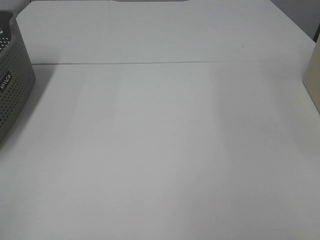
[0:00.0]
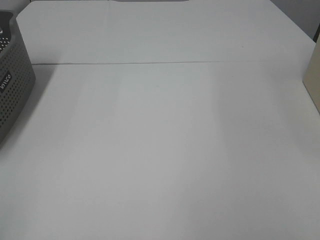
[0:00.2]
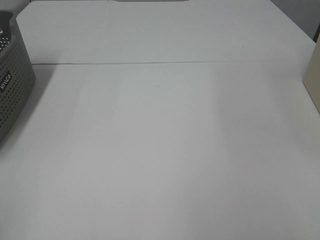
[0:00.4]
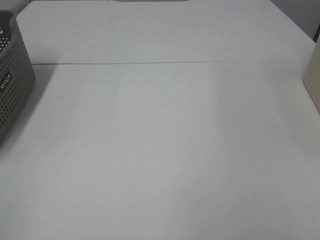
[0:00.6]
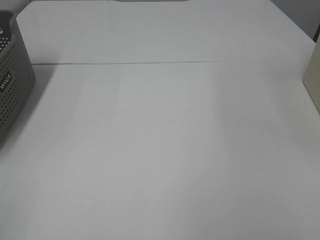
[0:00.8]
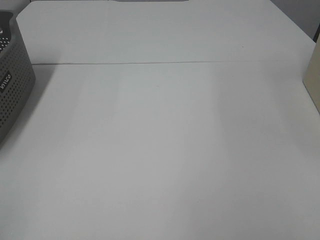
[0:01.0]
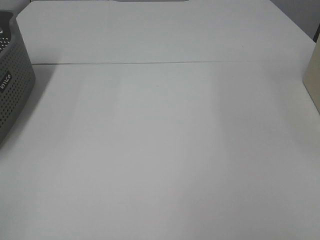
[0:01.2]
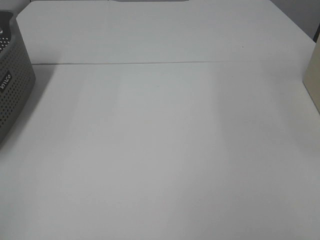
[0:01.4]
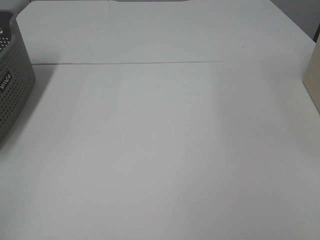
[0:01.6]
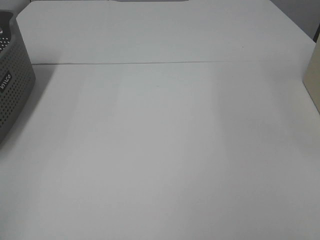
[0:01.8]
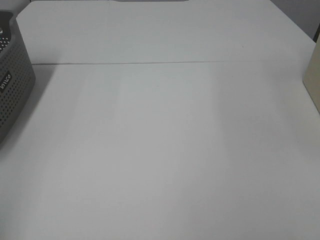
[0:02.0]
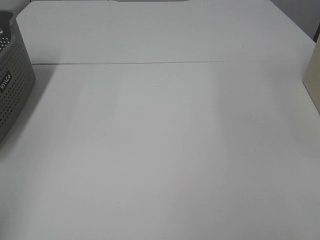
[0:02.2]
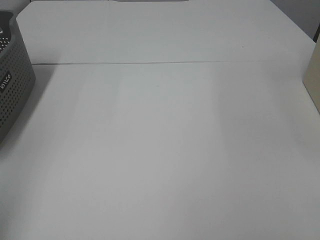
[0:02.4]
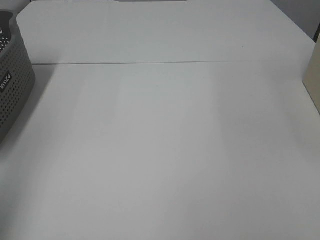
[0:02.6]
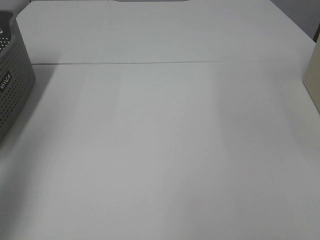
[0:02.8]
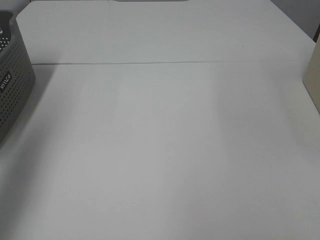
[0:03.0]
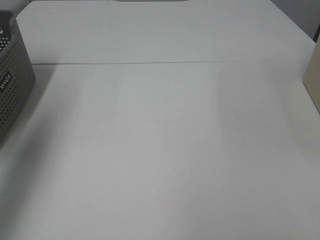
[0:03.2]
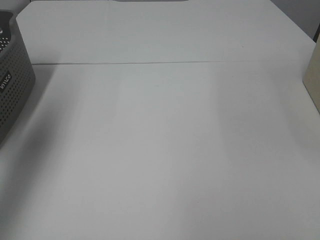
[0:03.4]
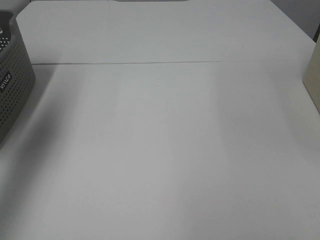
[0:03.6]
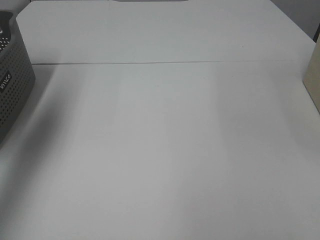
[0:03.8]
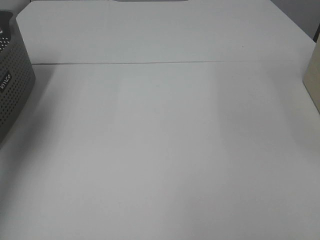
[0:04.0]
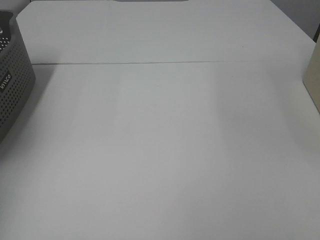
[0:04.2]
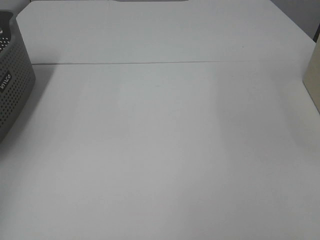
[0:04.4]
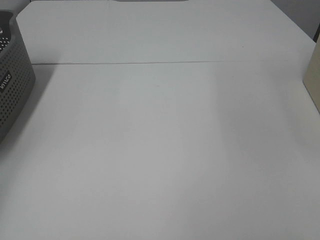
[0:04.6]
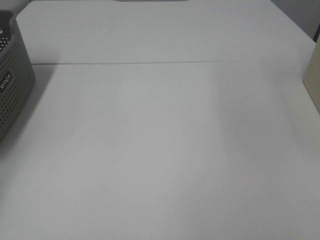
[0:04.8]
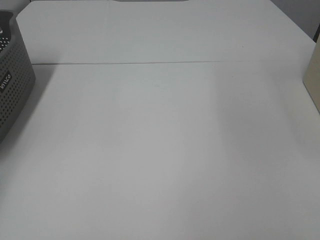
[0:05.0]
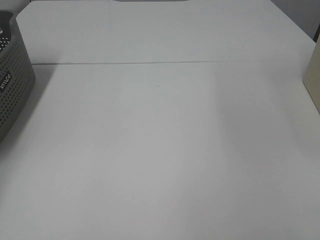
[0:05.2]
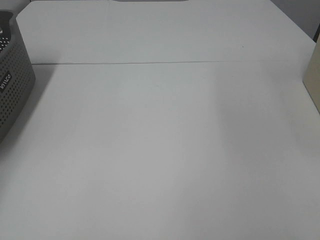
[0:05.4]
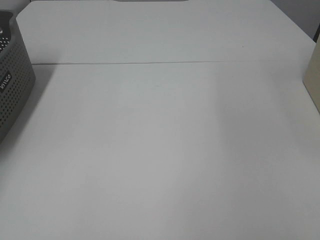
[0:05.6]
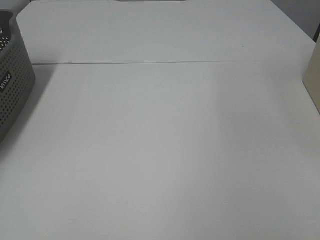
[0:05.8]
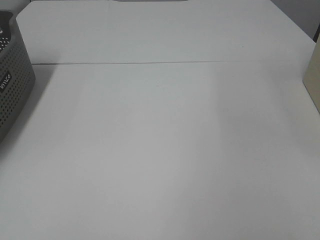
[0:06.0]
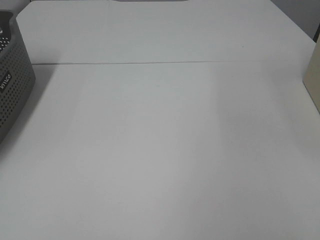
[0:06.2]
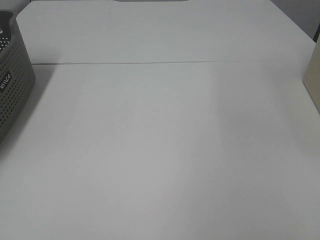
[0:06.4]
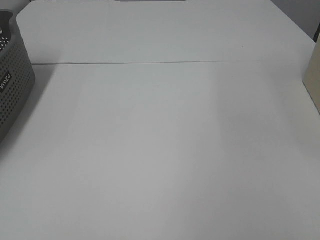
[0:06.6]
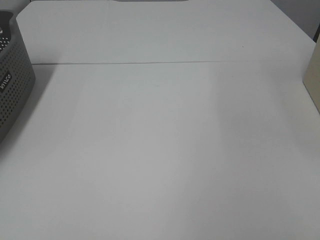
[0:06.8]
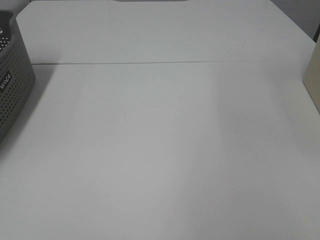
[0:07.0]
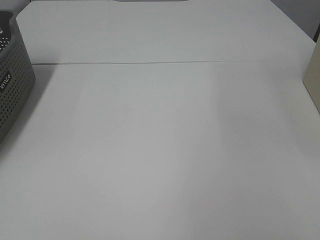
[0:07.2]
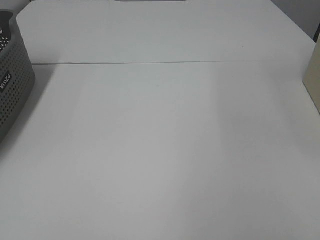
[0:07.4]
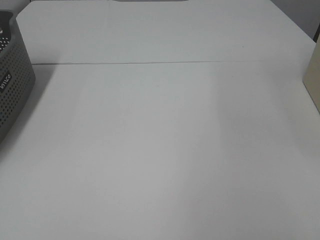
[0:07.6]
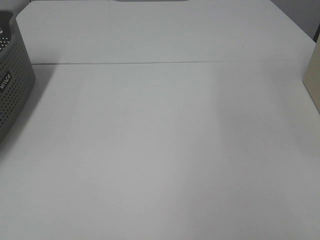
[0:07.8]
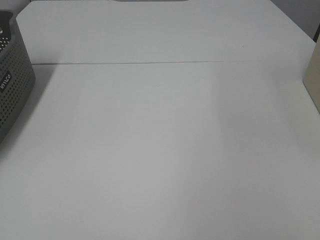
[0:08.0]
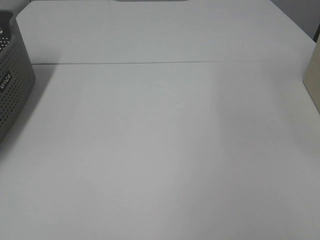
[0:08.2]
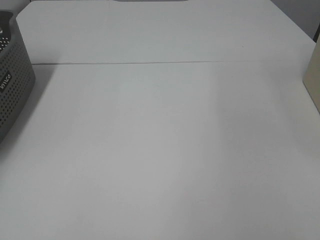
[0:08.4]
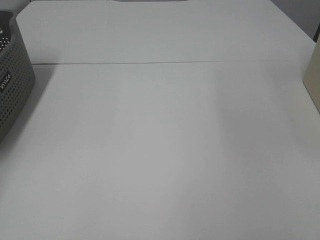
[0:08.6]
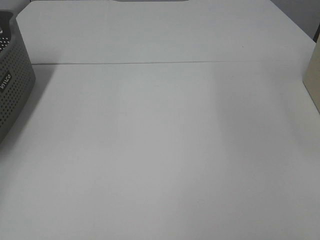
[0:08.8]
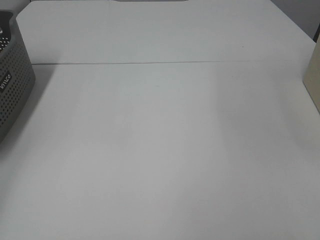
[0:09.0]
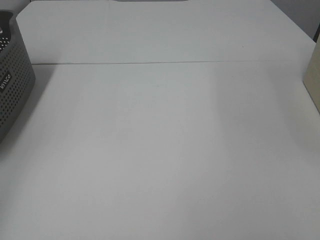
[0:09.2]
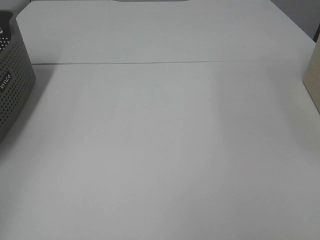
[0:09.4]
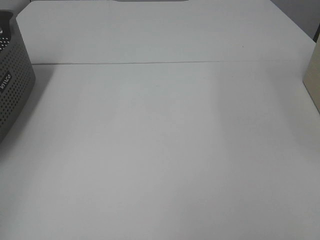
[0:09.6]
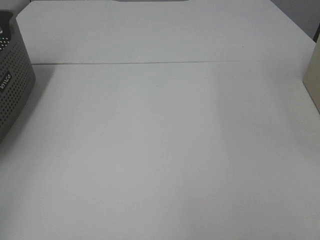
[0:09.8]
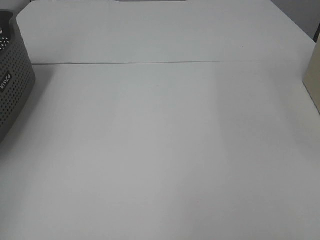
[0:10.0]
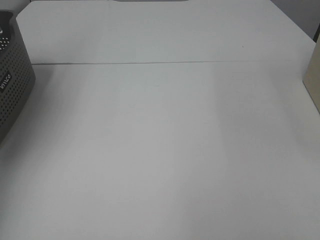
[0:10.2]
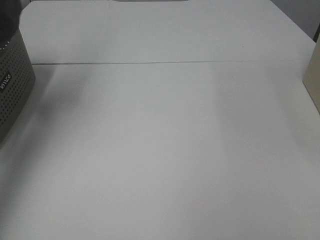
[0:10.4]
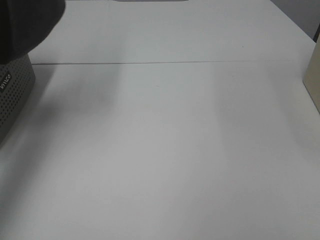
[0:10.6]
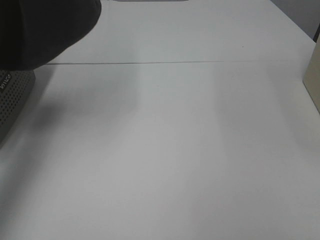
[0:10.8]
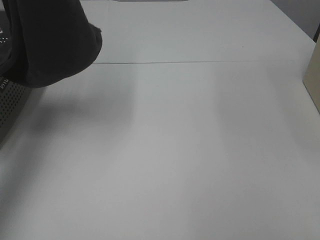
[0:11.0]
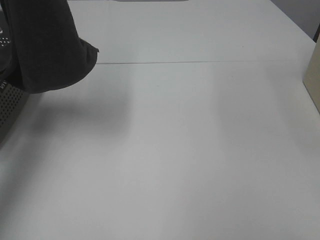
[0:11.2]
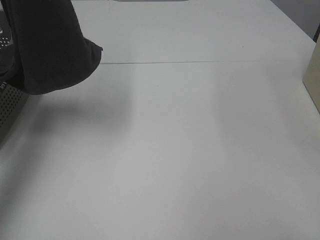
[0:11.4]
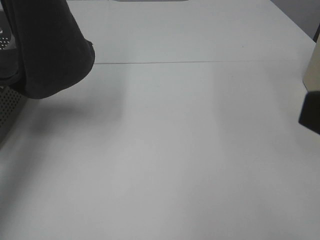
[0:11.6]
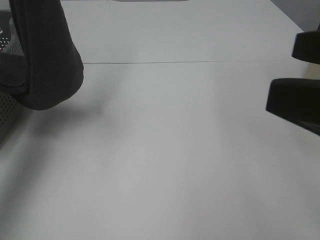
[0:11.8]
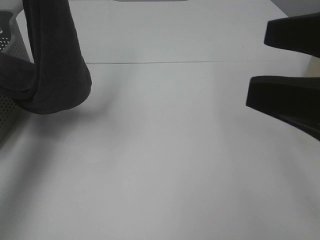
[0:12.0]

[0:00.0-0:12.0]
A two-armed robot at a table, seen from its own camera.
Task of the whole recording: Remove the towel and place it.
0:01.6 to 0:03.0: The left gripper travels forward by some 20 cm.
0:03.0 to 0:04.4: The left gripper moves forward and to the left, roughly 15 cm.
0:04.4 to 0:06.0: The left gripper heads to the left and downward, covering about 10 cm.
0:09.0 to 0:10.4: The left gripper travels upward and to the right by approximately 20 cm.
0:10.4 to 0:12.0: The right gripper travels forward and to the left by approximately 15 cm. The left gripper is displaced downward and to the right by some 15 cm.

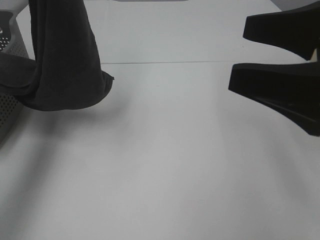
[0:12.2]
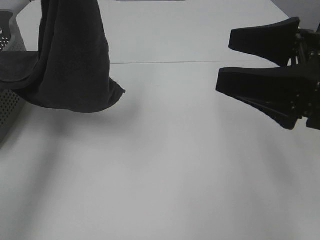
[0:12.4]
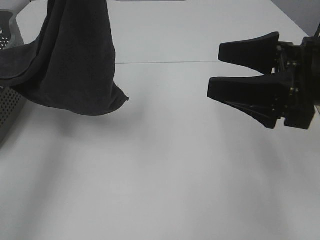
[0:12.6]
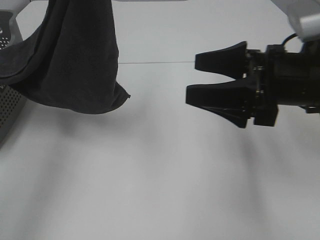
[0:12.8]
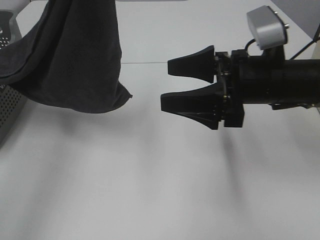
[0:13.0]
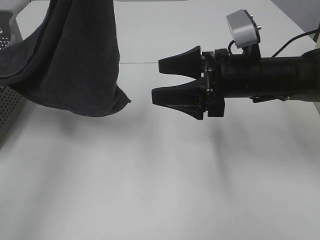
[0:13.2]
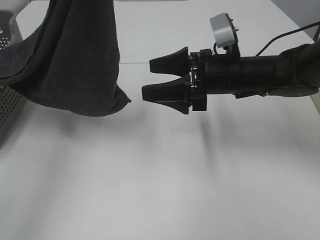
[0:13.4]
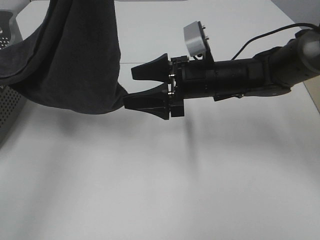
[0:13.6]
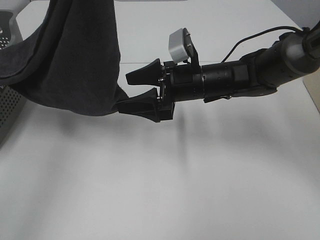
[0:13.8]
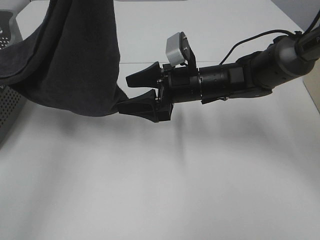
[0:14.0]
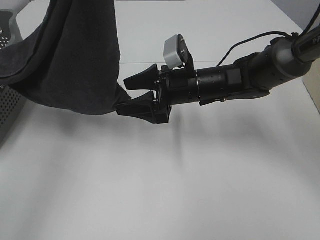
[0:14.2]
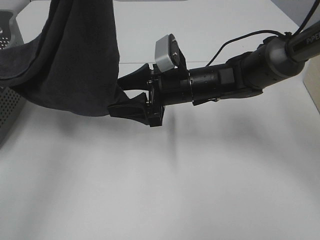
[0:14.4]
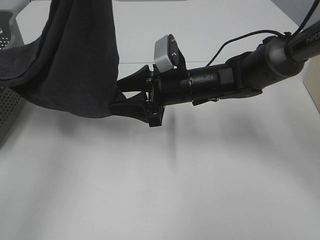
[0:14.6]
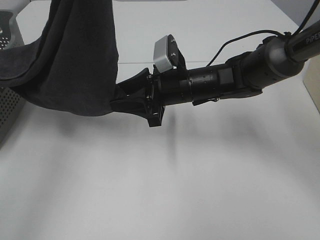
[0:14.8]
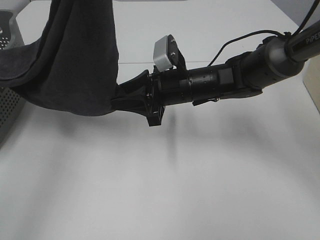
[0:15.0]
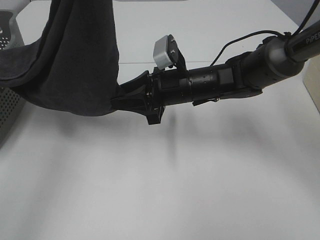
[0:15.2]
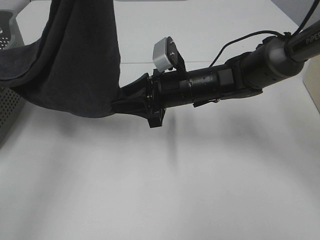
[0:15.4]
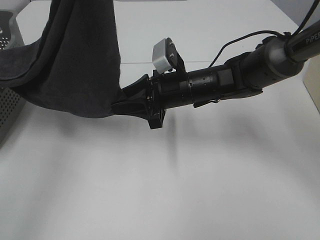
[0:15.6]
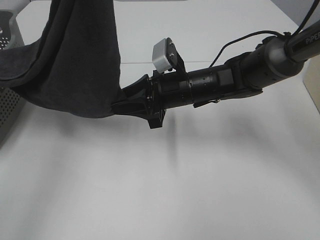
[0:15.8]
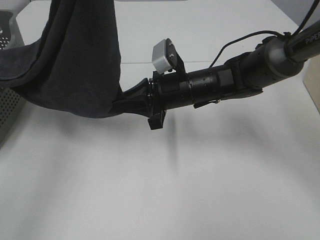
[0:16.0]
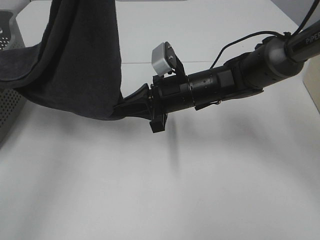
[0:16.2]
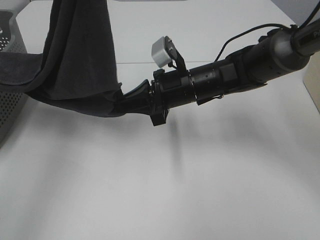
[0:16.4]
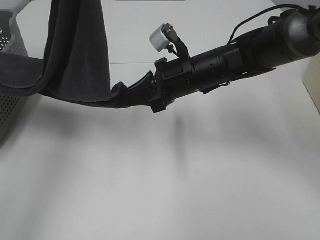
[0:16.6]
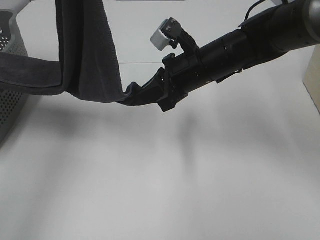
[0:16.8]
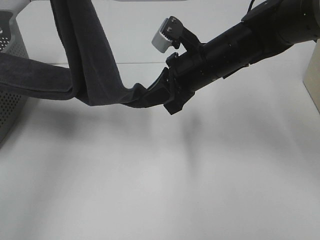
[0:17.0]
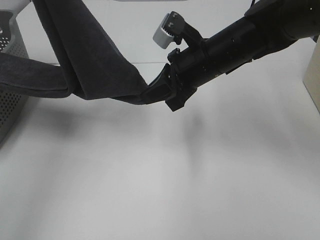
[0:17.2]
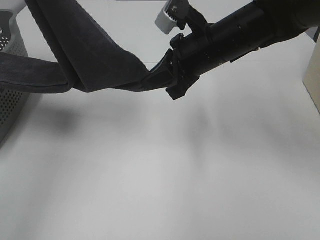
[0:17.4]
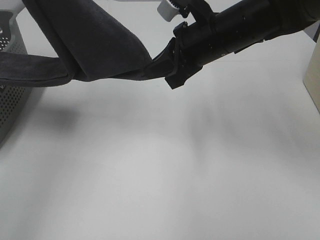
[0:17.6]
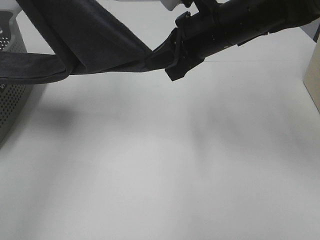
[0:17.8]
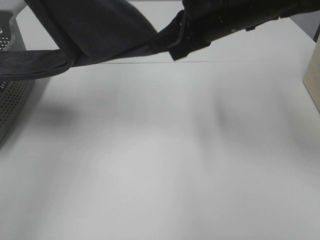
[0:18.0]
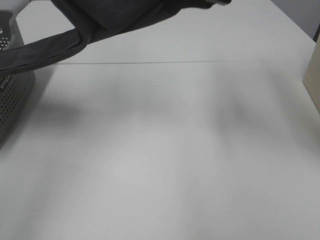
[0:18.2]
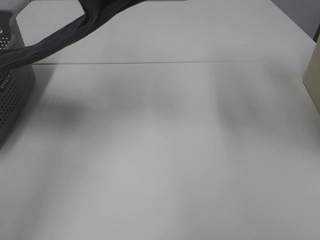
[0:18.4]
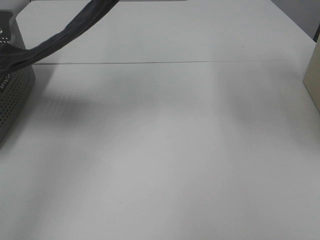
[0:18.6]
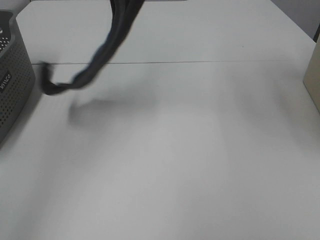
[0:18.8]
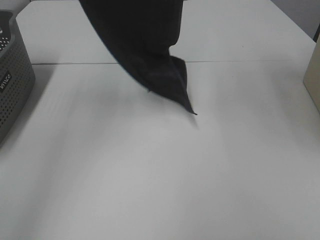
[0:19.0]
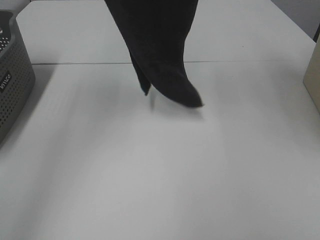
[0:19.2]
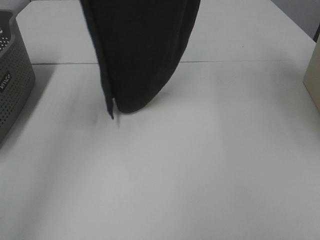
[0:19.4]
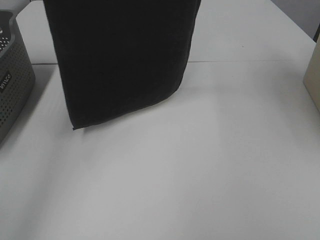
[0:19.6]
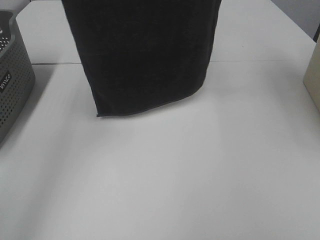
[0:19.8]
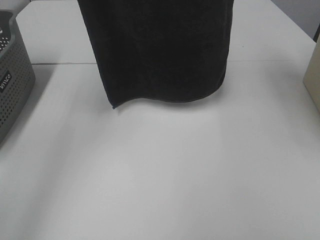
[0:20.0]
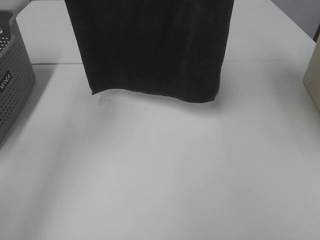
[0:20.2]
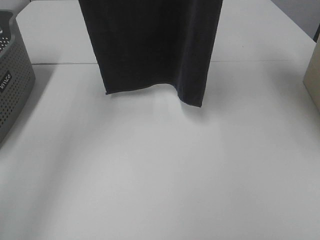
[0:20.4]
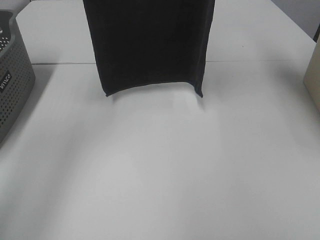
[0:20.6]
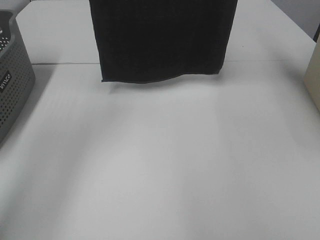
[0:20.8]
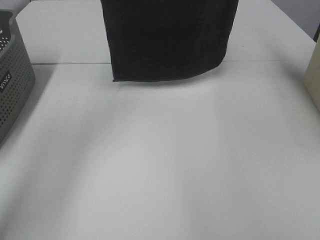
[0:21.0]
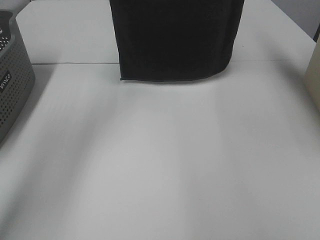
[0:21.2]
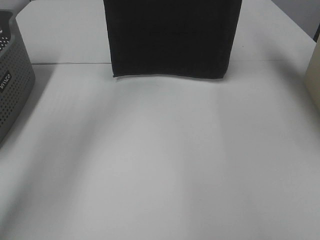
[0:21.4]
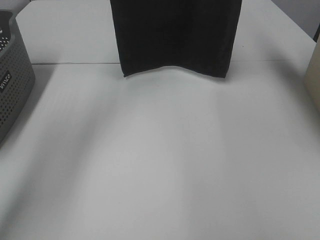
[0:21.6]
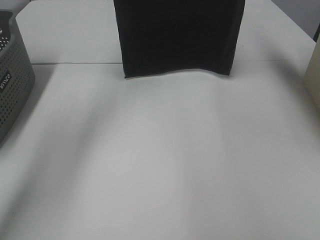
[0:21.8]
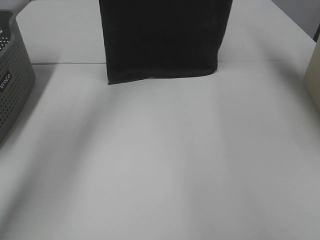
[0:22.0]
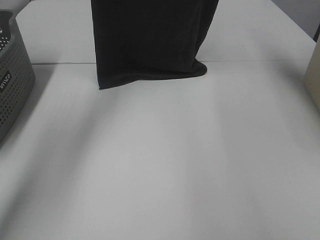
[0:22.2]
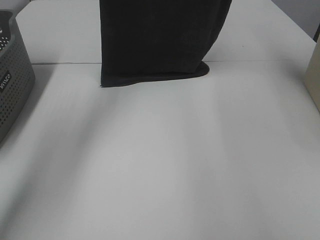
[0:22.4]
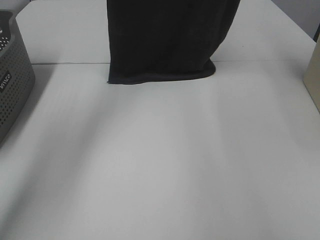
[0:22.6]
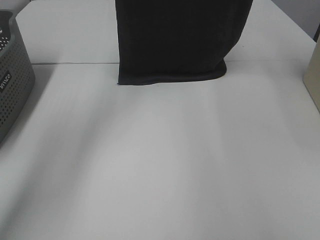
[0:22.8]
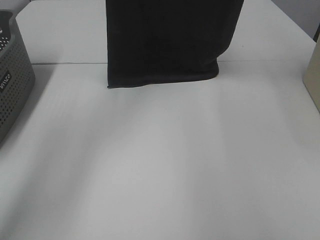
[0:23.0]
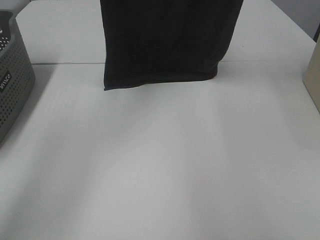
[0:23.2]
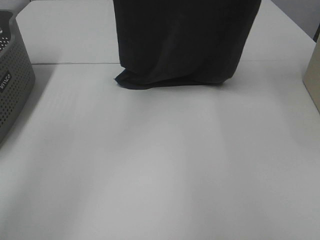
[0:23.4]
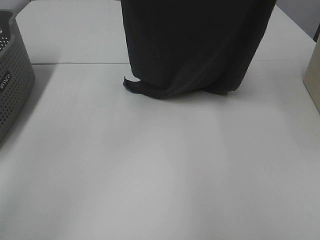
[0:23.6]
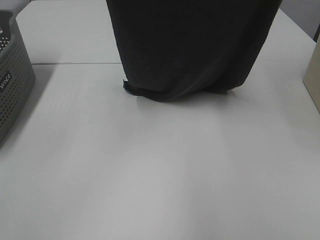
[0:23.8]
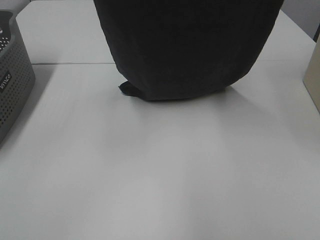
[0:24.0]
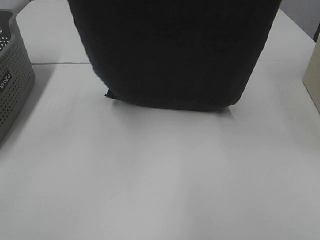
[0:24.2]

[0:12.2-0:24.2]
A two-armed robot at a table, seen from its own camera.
Task of the whole recording: Remove the towel and place it.
Step, 0:12.2 to 0:16.4: Right hand: grab a corner of the grey towel and straighten it.
Step, 0:16.6 to 0:23.2: Left hand: spread the grey towel flat on the table.
Step, 0:16.6 to 0:23.2: Right hand: spread the grey towel flat on the table.
0:12.2 to 0:13.8: The left gripper is displaced to the right by roughly 5 cm, while the right gripper shifts roughly 25 cm forward, downward and to the left.
0:13.8 to 0:15.2: The right gripper closes.
0:15.2 to 0:16.6: The right gripper closes.
0:16.6 to 0:18.2: The right gripper moves upward, roughly 15 cm. Meanwhile the left gripper travels to the left by about 5 cm.
0:18.2 to 0:19.8: The left gripper shifts by some 5 cm; the right gripper goes approximately 25 cm upward.
0:19.8 to 0:21.2: The left gripper is displaced forward by some 10 cm; the right gripper moves forward and downward, some 10 cm.
0:22.6 to 0:24.2: Both grippers travel together backward, roughly 25 cm.
